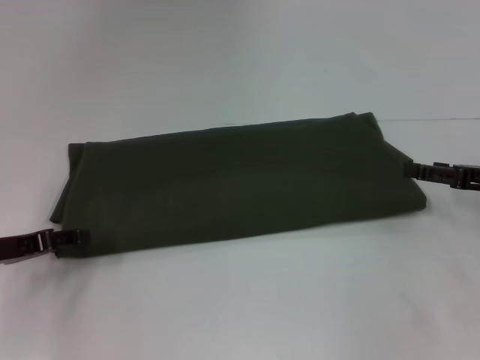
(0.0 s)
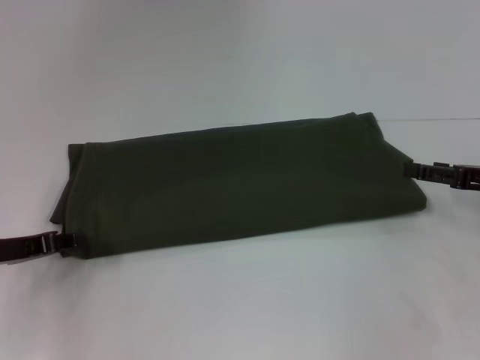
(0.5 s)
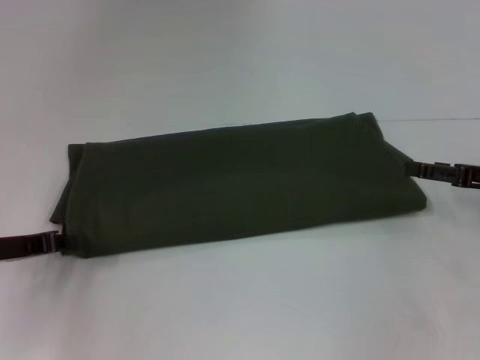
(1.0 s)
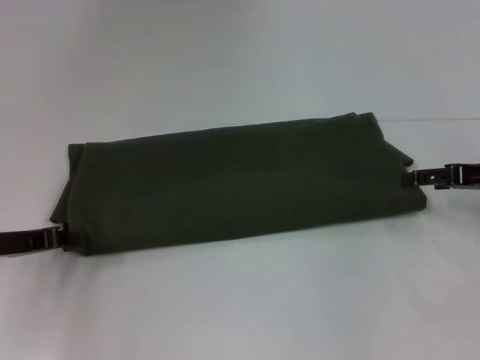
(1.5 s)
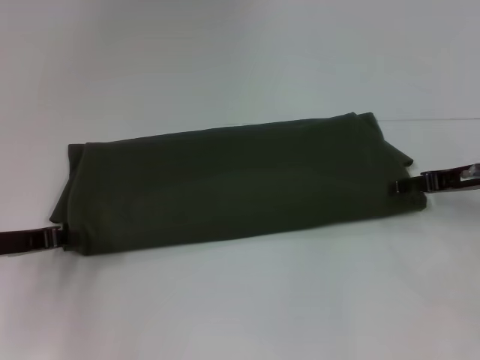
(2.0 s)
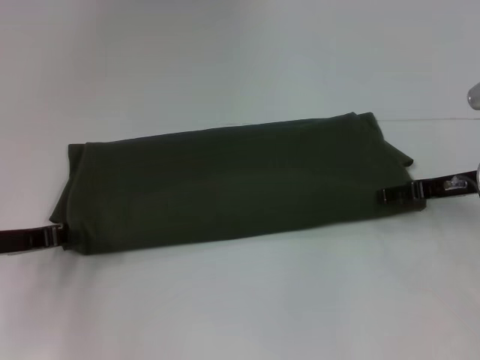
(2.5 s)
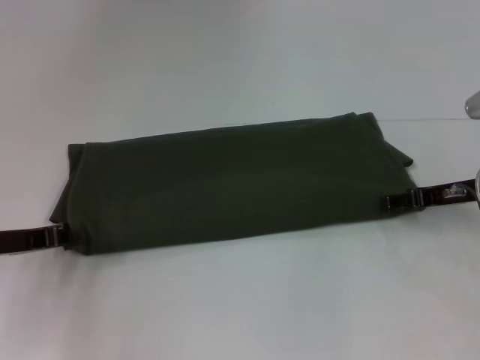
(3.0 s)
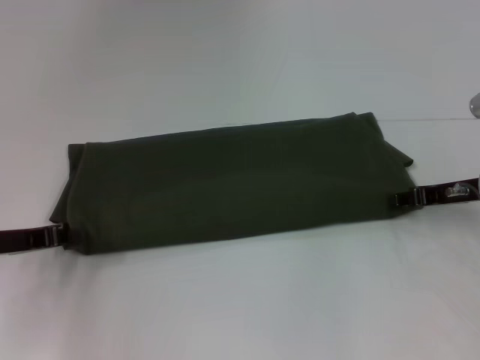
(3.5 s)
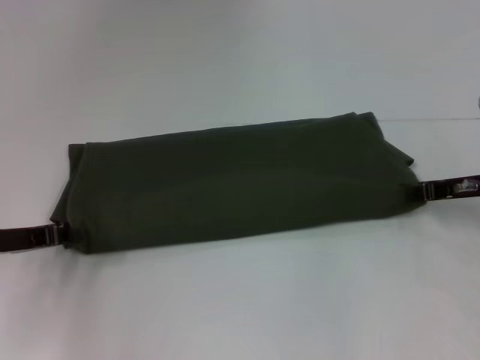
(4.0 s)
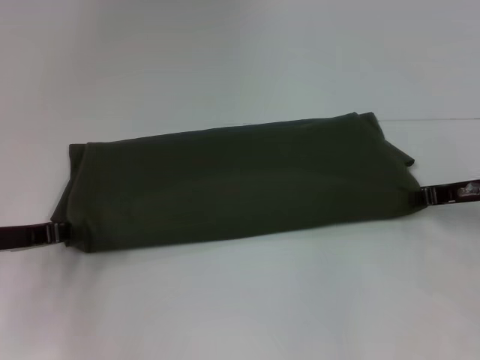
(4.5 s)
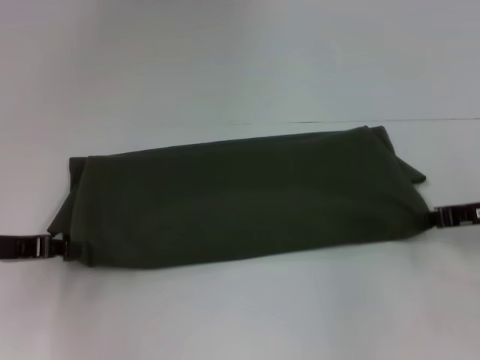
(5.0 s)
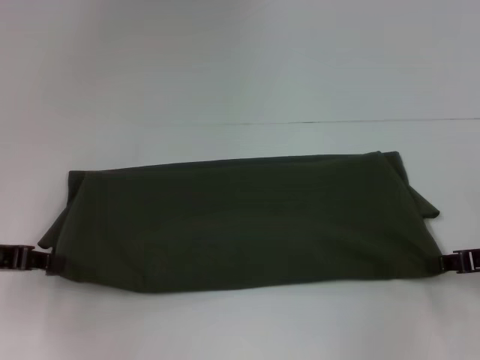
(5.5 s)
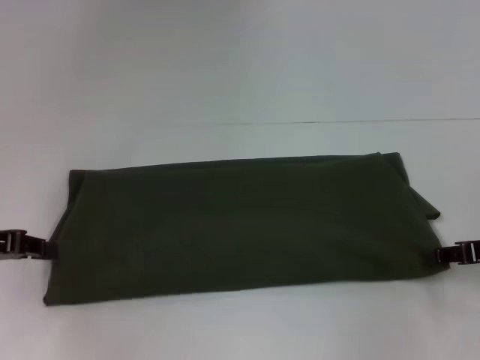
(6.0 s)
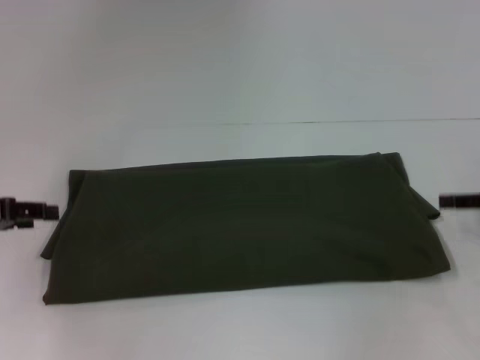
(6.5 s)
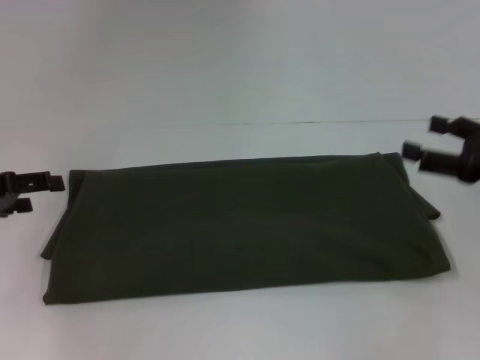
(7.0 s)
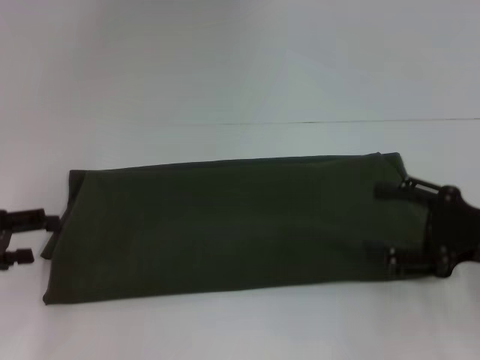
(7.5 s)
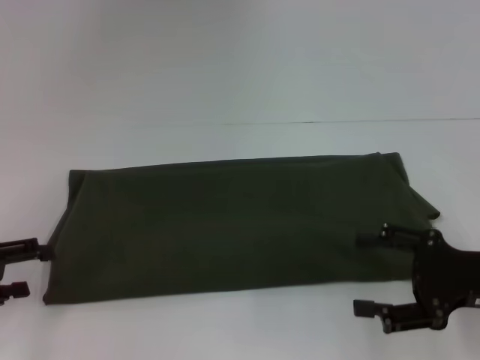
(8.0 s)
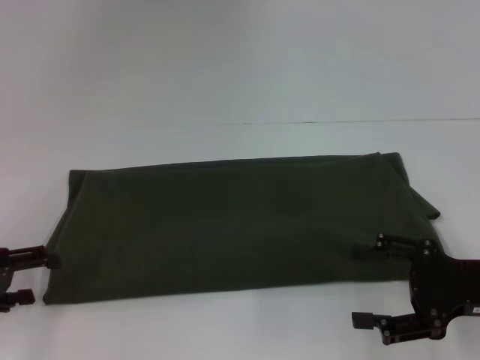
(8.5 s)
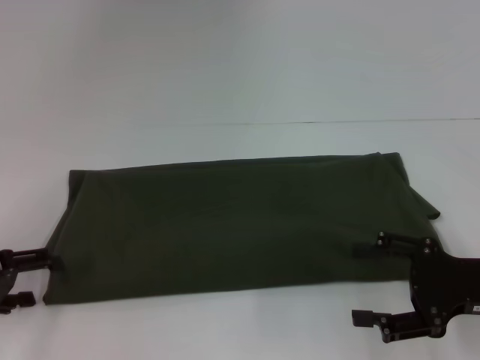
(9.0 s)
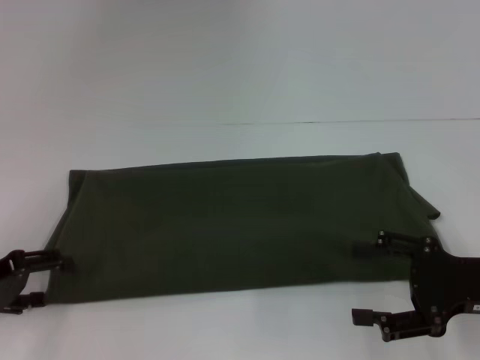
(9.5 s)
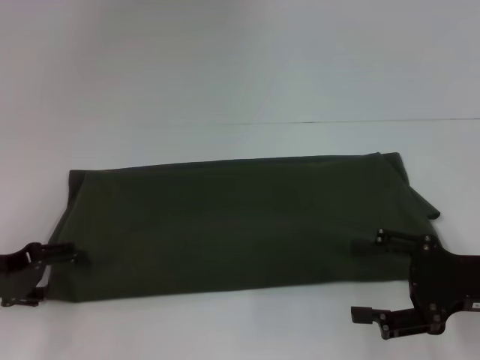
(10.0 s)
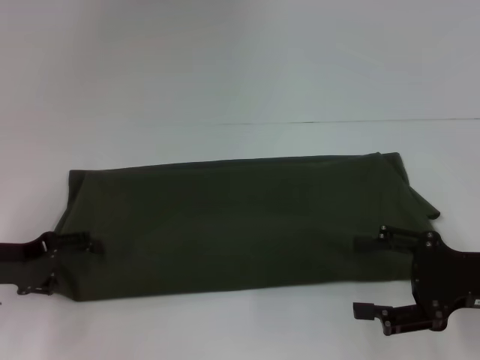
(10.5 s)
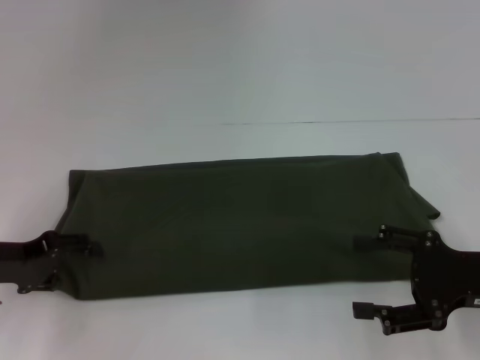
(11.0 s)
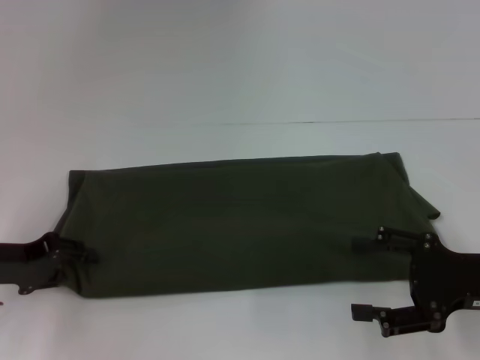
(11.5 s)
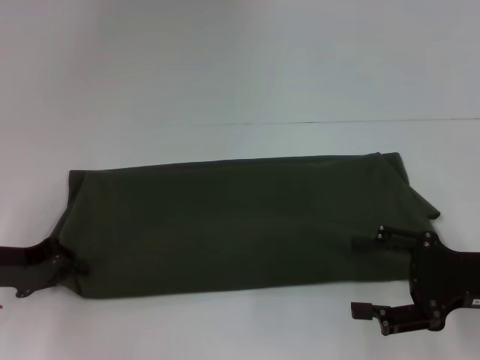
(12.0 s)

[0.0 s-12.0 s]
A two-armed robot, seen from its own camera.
0.0 to 2.0 s: The right gripper moves forward, some 5 cm, while the left gripper closes up.
2.0 to 4.0 s: The right gripper closes up.
4.0 to 6.0 s: The right gripper goes approximately 10 cm backward. Meanwhile the left gripper shifts by roughly 5 cm.
6.0 to 8.0 s: The right gripper heads backward, covering approximately 5 cm, and opens; the left gripper changes place by about 5 cm, and opens up.
8.0 to 10.0 s: The grippers move only a little.
10.0 to 12.0 s: The left gripper closes its fingers.

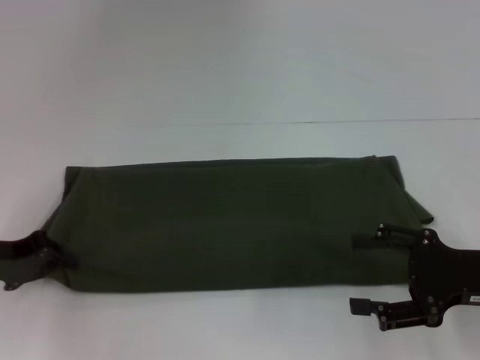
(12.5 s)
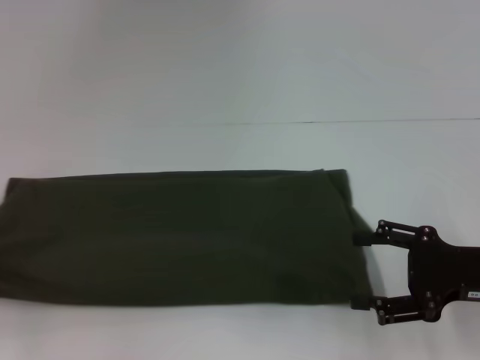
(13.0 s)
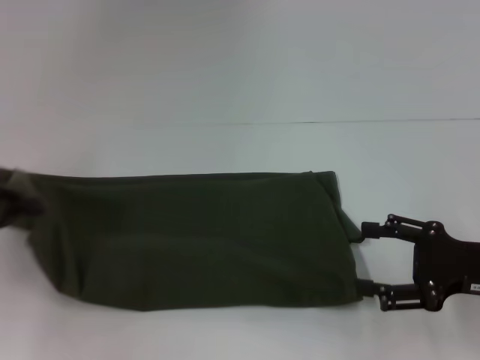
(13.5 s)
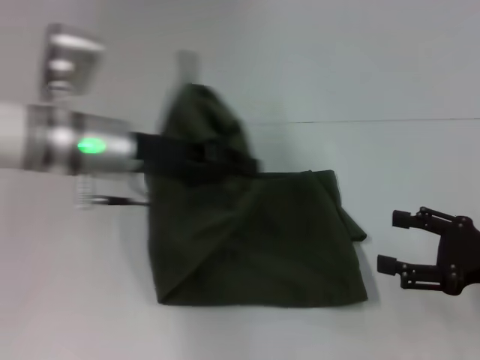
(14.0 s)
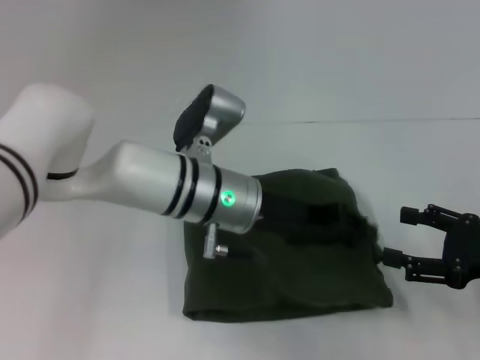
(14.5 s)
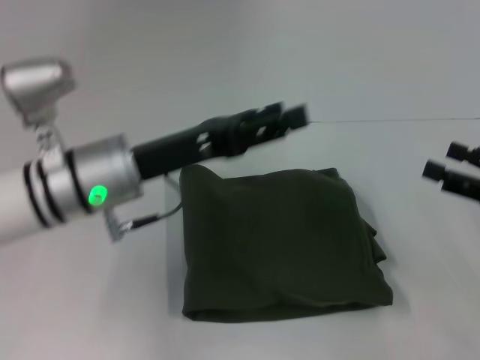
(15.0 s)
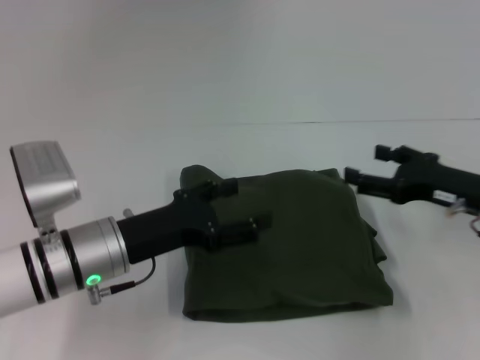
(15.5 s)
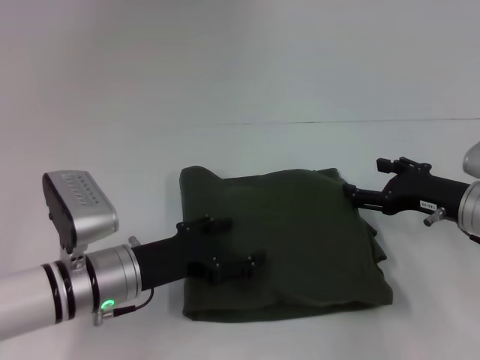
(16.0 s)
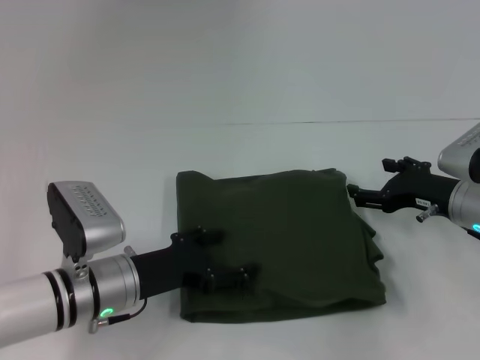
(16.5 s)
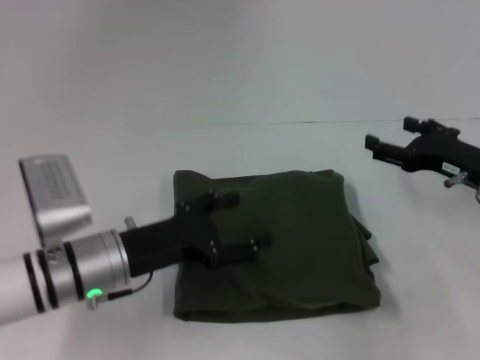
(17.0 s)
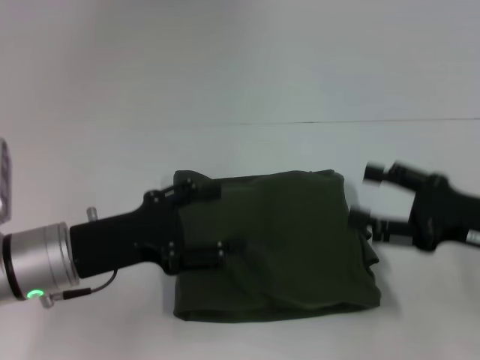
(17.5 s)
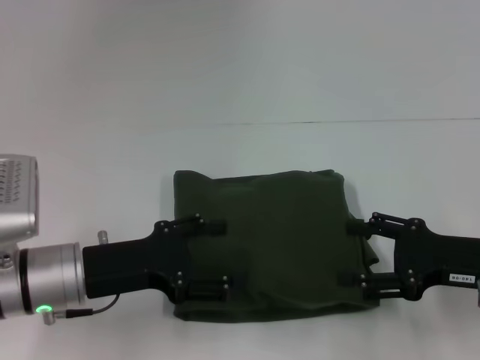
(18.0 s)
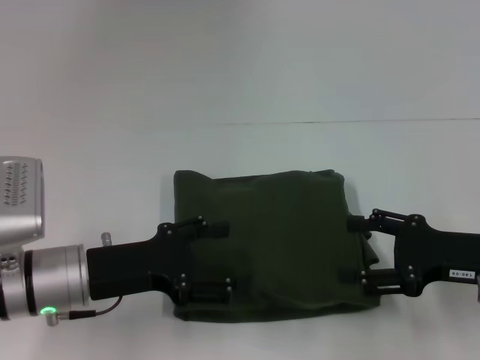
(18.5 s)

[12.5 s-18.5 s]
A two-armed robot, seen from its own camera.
Step, 12.5 to 16.0 s: Fold the clothes with your left hand.
12.5 to 14.5 s: The left gripper is displaced to the right by approximately 30 cm.
14.5 to 16.5 s: The right gripper heads forward and to the left, covering about 10 cm. The left gripper goes roughly 15 cm to the left, downward and backward, and opens.
16.5 to 18.5 s: The left gripper ends up some 5 cm from where it was, while the right gripper shifts some 10 cm backward.

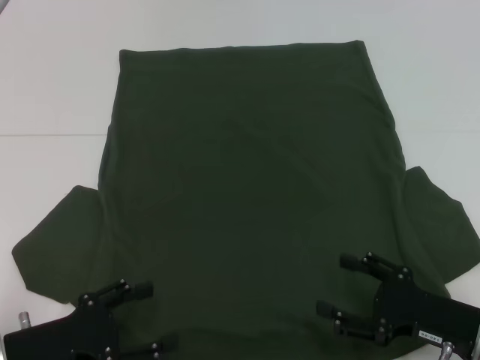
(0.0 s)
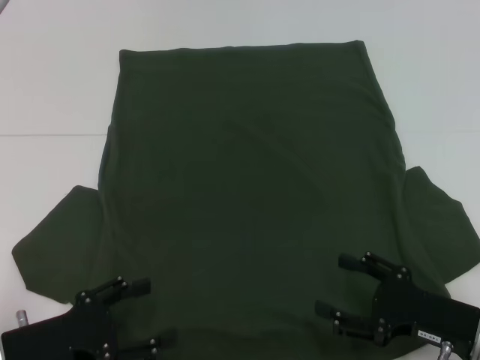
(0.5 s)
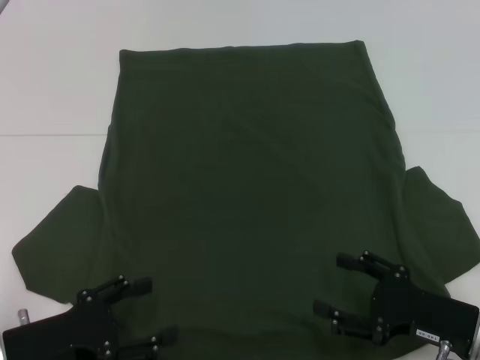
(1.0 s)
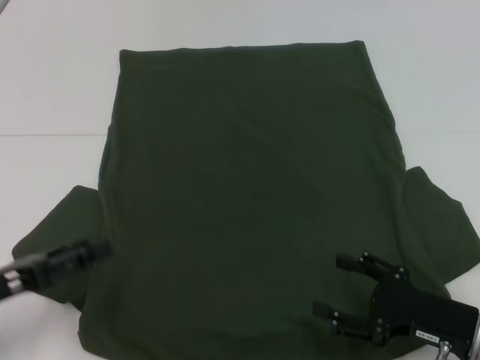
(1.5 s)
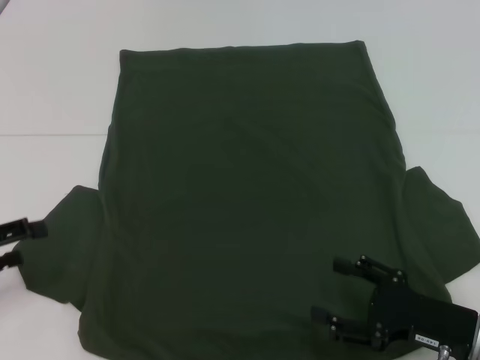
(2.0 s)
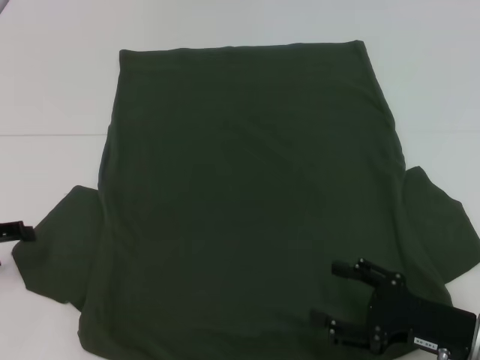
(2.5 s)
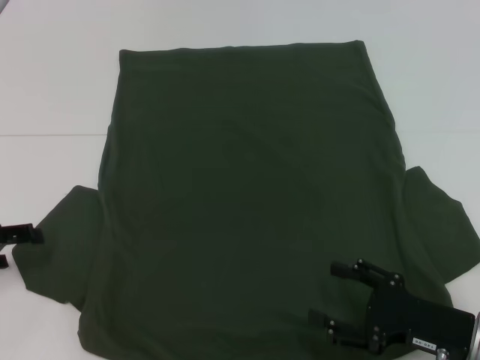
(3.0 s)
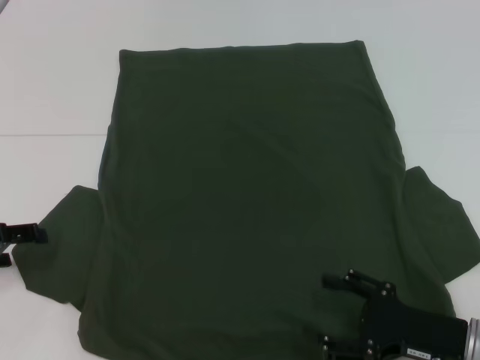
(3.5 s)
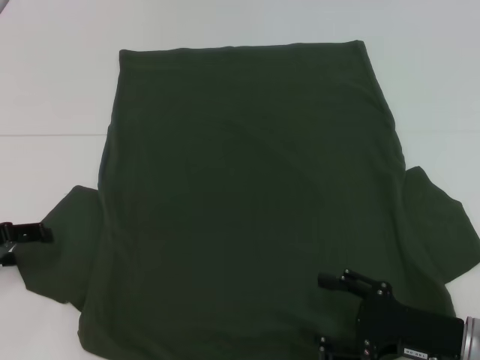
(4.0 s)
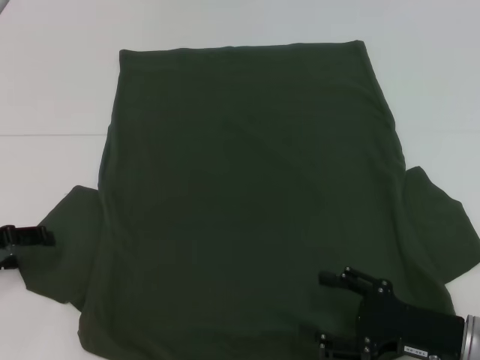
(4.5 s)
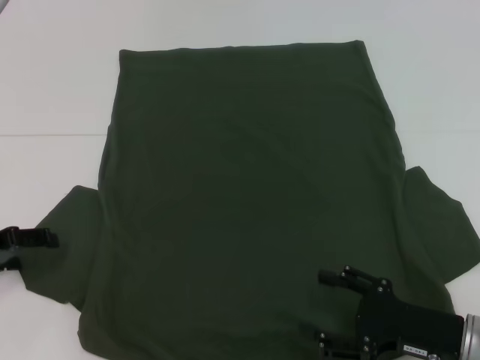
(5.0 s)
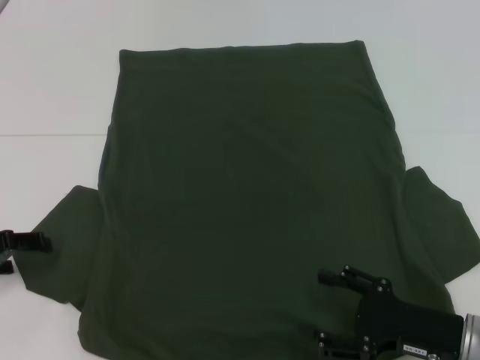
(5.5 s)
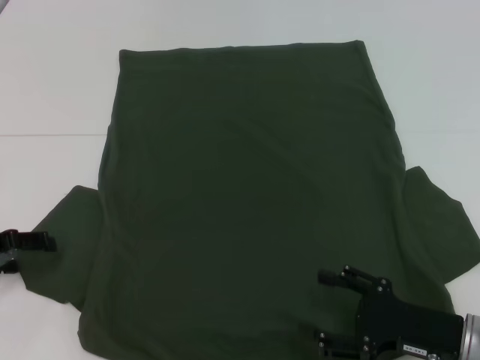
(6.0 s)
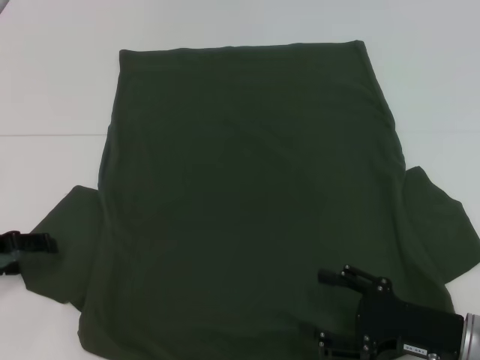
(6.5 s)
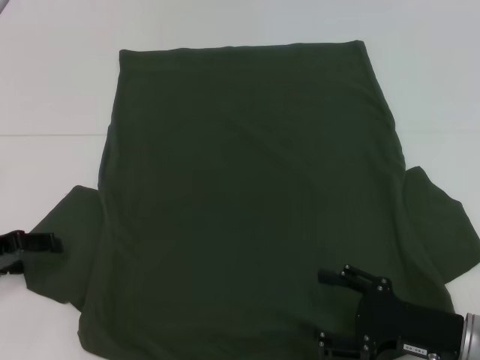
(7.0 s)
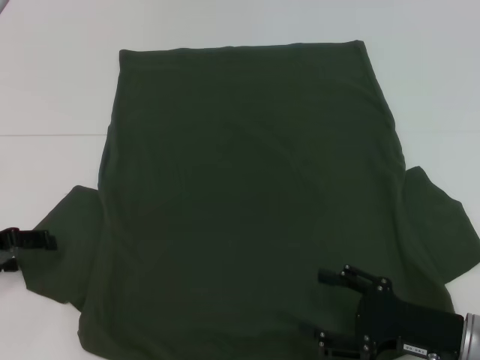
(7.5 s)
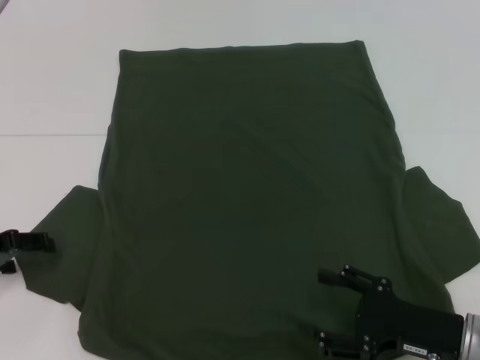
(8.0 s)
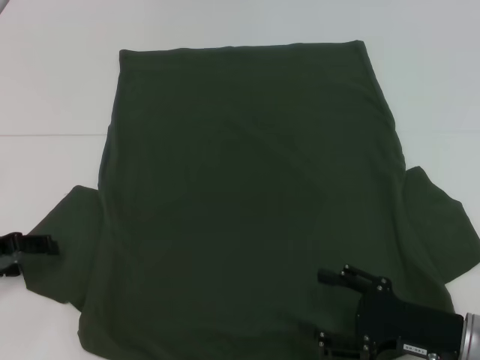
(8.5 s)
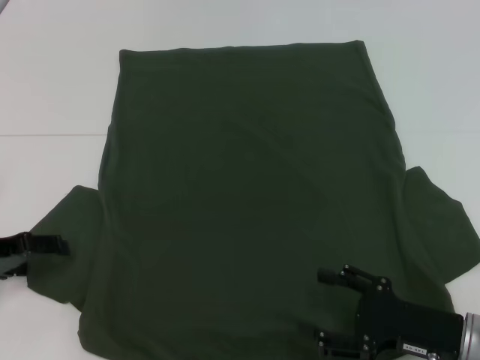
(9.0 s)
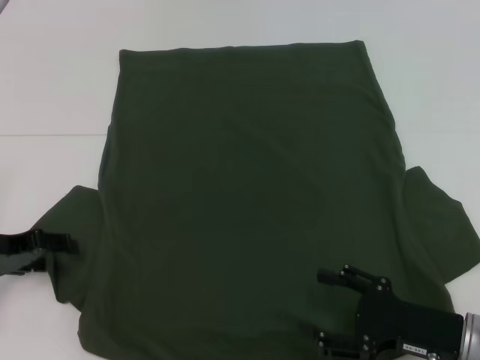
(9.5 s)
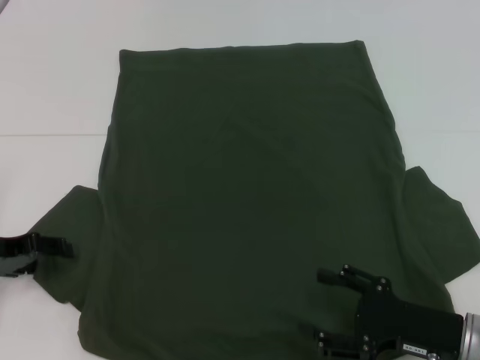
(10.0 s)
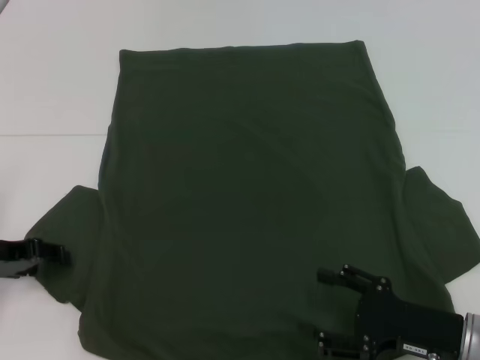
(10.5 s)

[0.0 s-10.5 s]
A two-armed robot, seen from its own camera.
0.0 to 2.0 s: The left gripper shifts some 15 cm to the left, upward and forward.
4.0 to 6.5 s: The two grippers keep their place.
6.5 to 8.5 s: Both grippers stay about where they are.
8.5 to 10.5 s: The grippers move only a little.
